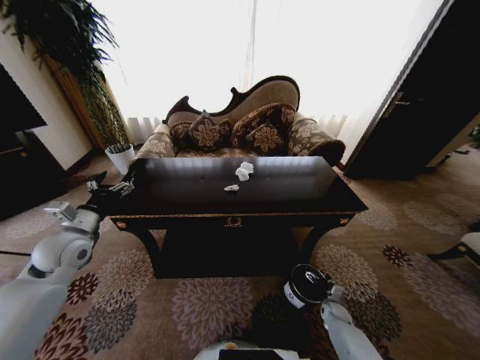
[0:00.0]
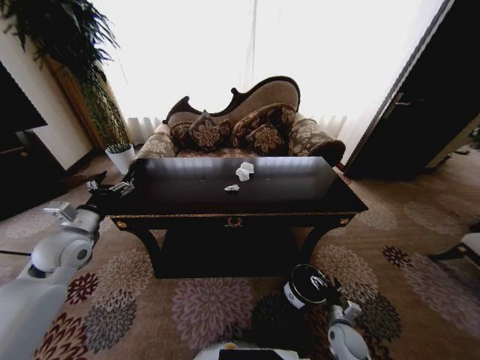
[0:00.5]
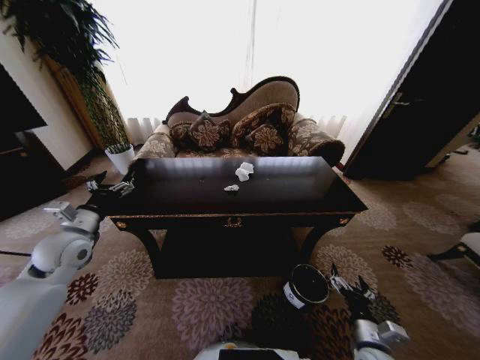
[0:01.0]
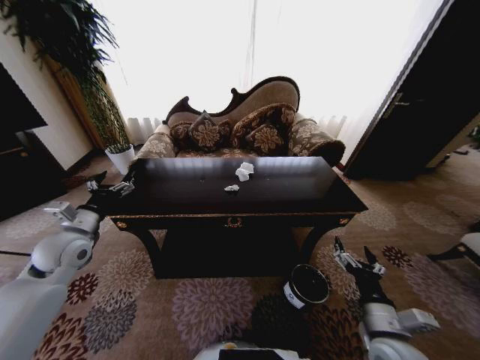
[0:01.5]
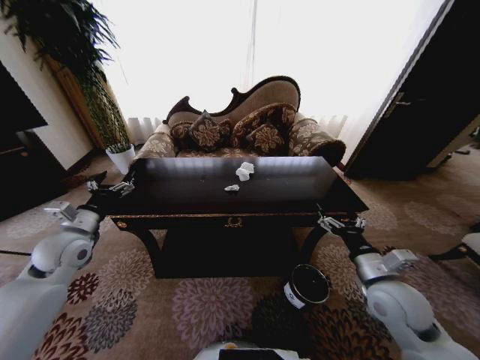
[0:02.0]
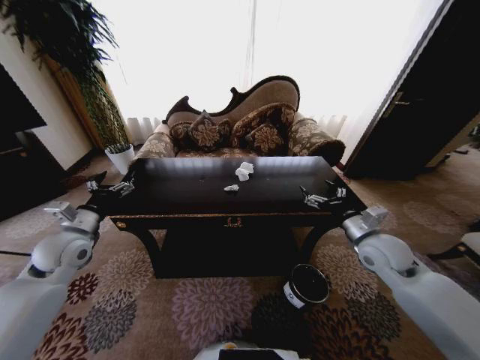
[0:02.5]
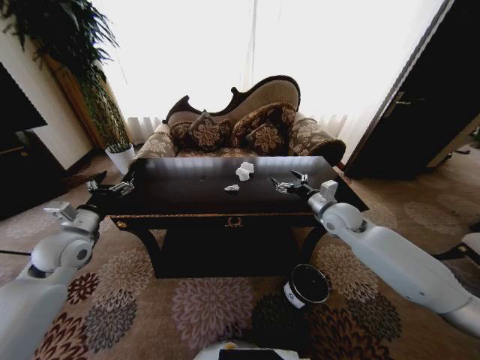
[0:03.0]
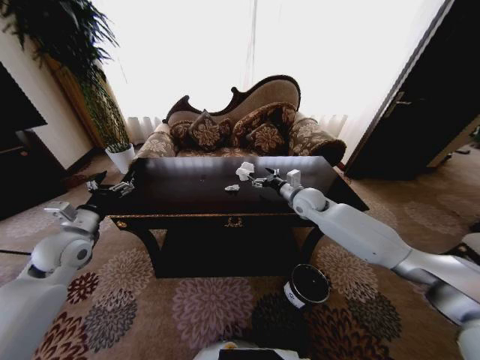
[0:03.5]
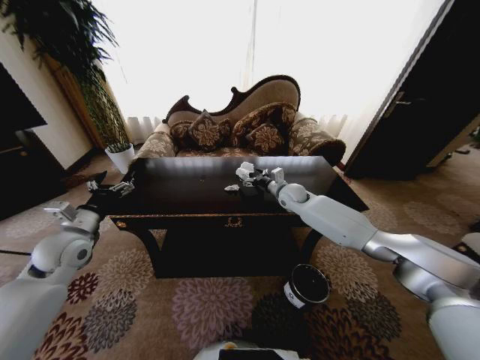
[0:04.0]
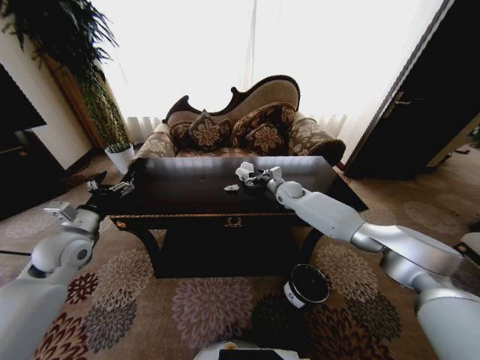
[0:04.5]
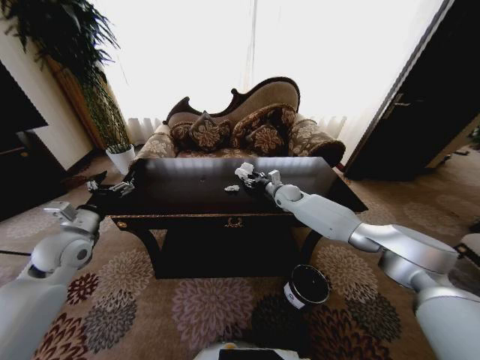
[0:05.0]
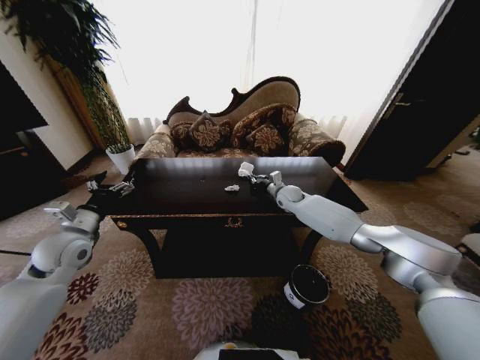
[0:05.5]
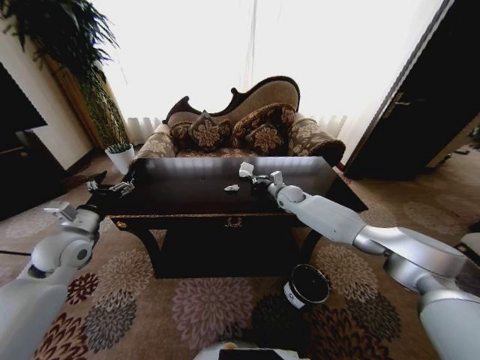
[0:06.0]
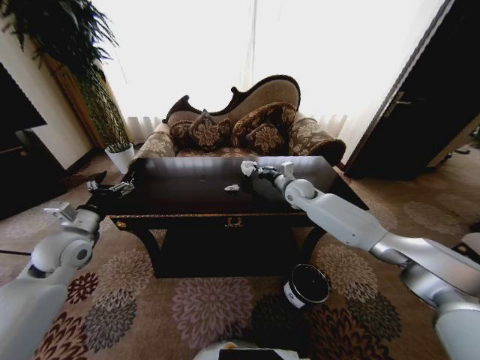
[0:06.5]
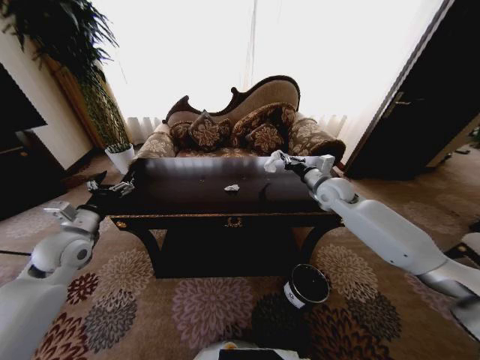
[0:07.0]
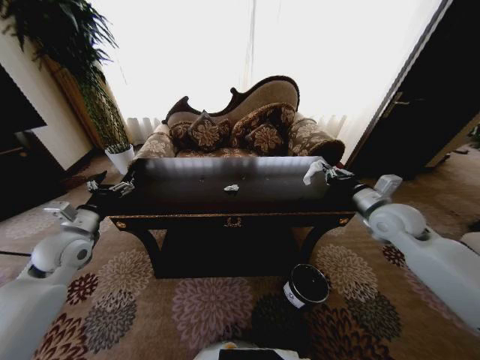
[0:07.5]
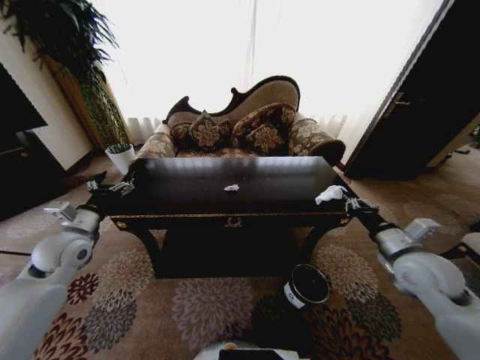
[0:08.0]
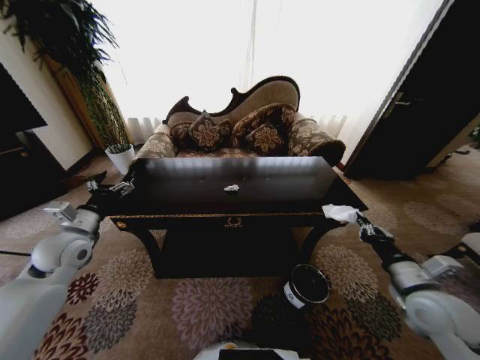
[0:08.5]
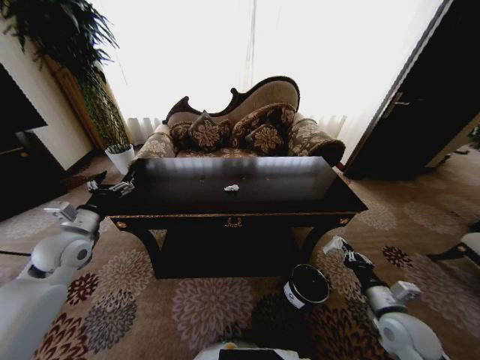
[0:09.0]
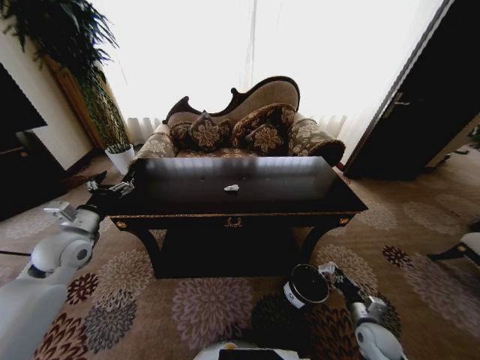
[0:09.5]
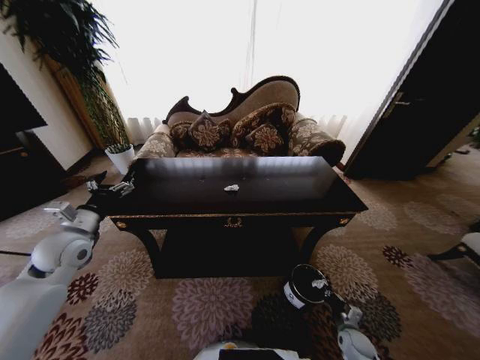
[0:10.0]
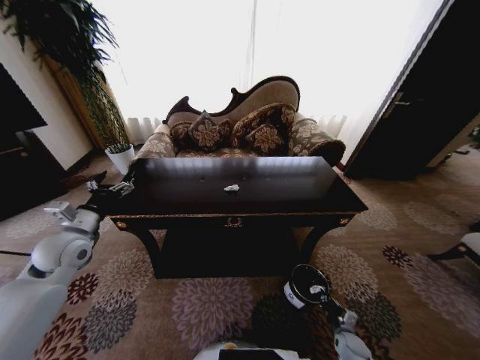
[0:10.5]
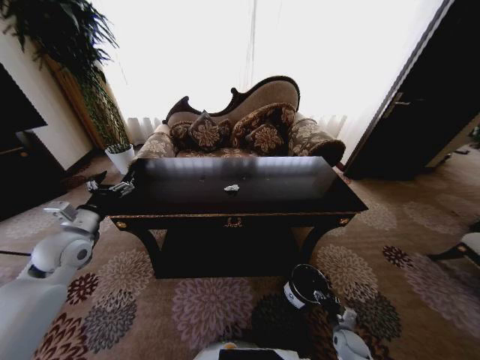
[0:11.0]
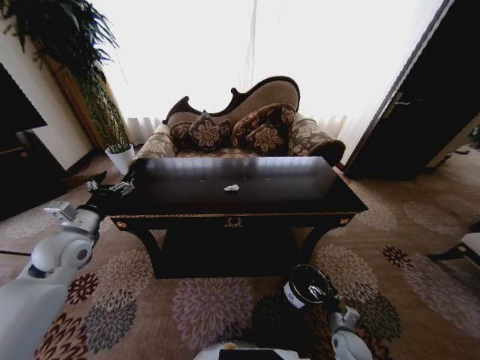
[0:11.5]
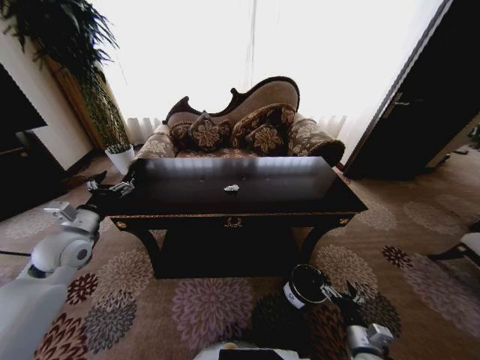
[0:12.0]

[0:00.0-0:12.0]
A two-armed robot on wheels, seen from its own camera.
Task of the whole recording: Move to the front of the table and place the trash on the table into the trash bin.
0:00.0 to 0:02.0: The right gripper is displaced upward by roughly 40 cm.
0:02.0 to 0:04.0: The right gripper shifts approximately 35 cm forward.
0:04.0 to 0:06.0: The right gripper closes its fingers.
0:06.0 to 0:08.0: The right gripper goes some 35 cm backward and to the right.
0:08.0 to 0:10.0: The right gripper is displaced downward by roughly 40 cm.
0:10.0 to 0:12.0: The right gripper moves upward, to the left and backward, some 20 cm, and opens.

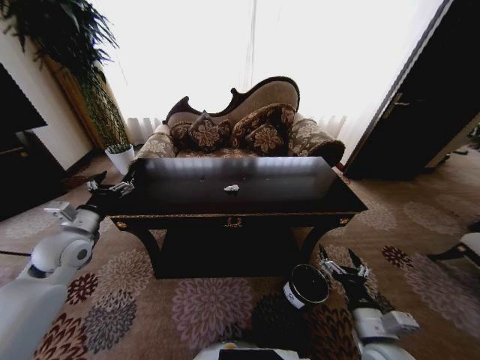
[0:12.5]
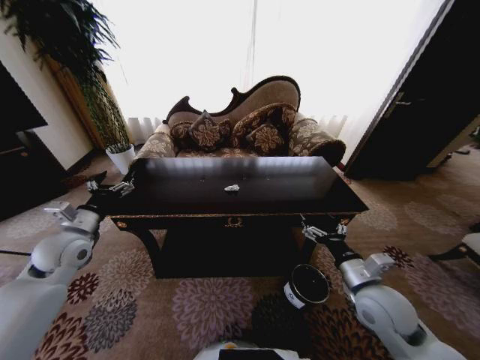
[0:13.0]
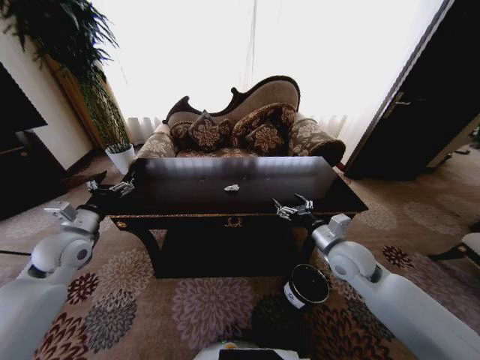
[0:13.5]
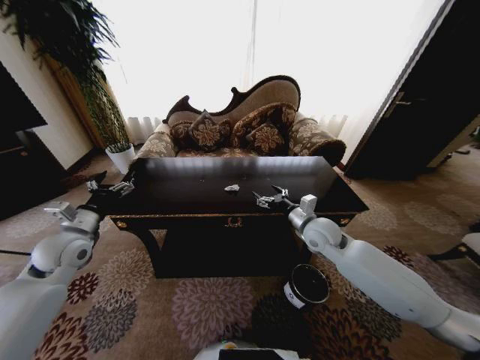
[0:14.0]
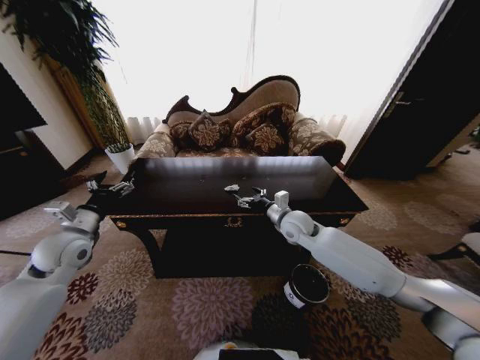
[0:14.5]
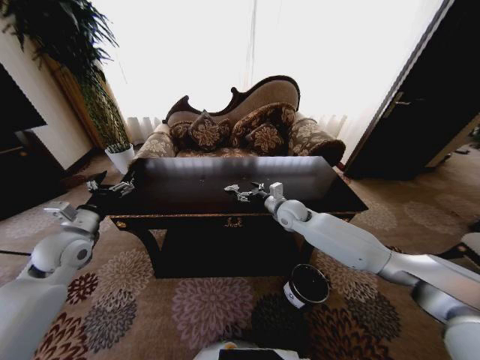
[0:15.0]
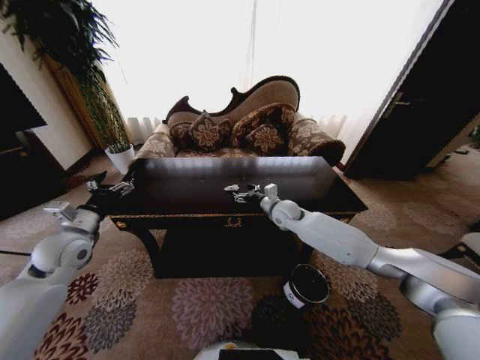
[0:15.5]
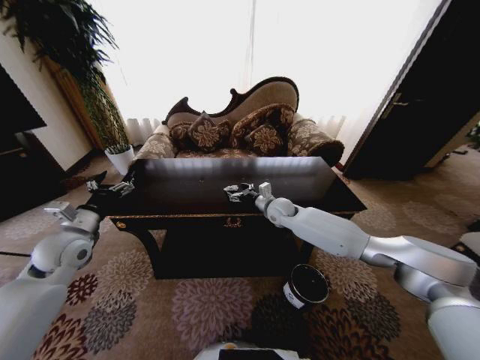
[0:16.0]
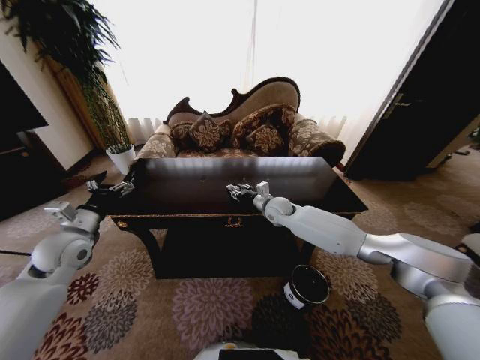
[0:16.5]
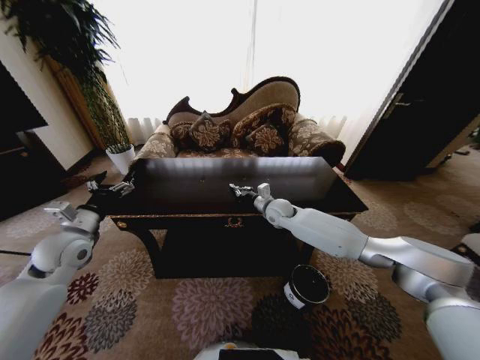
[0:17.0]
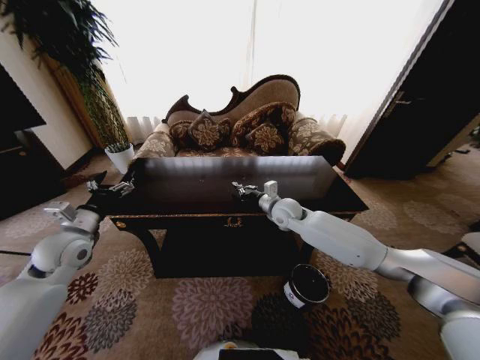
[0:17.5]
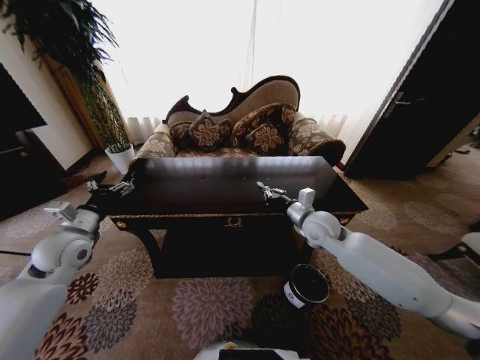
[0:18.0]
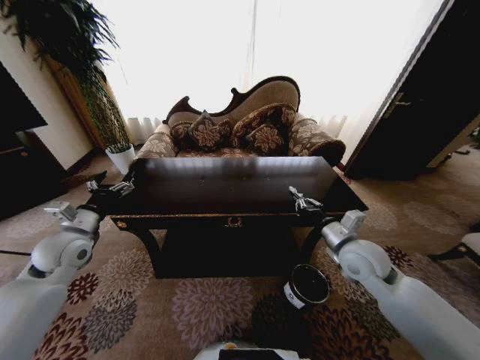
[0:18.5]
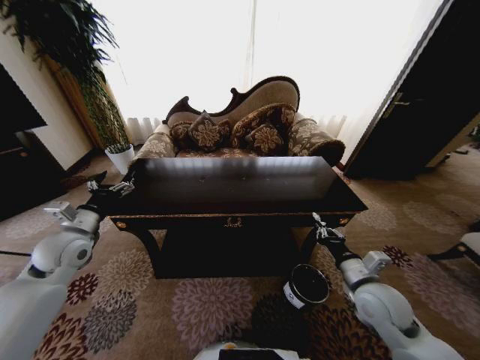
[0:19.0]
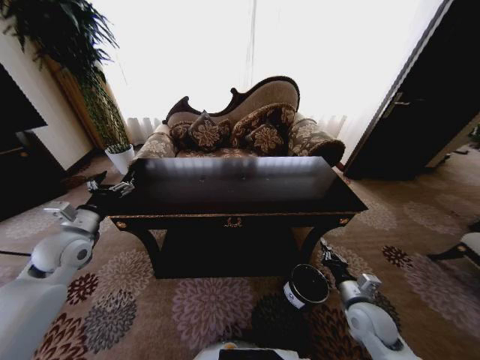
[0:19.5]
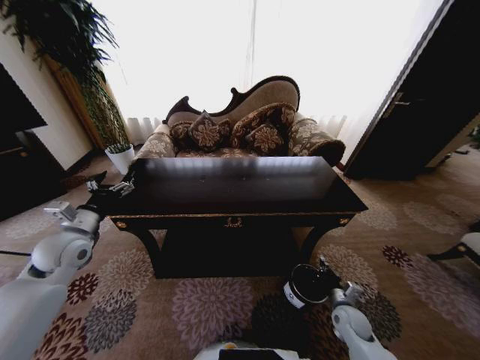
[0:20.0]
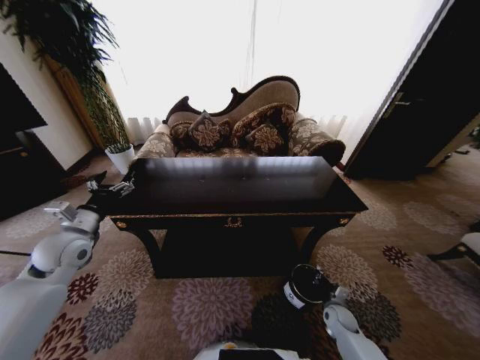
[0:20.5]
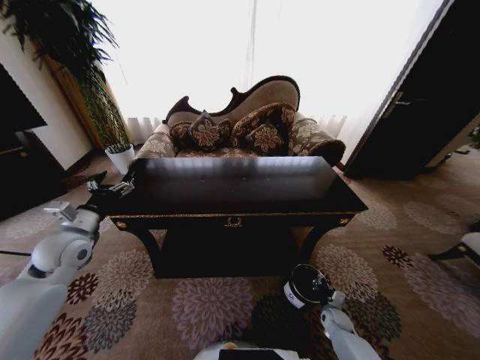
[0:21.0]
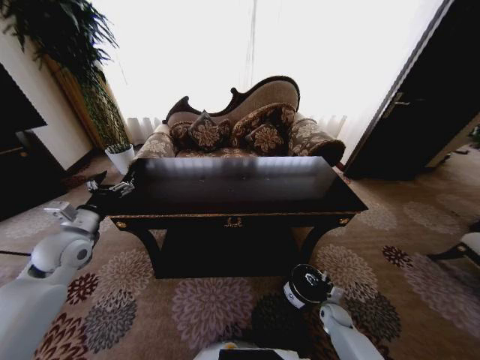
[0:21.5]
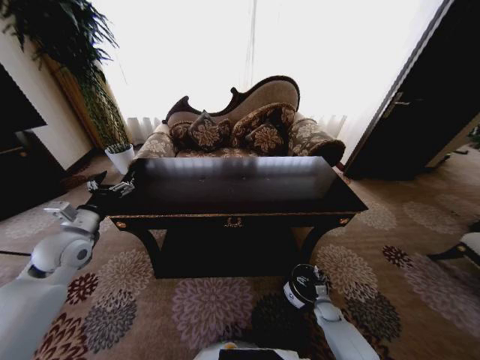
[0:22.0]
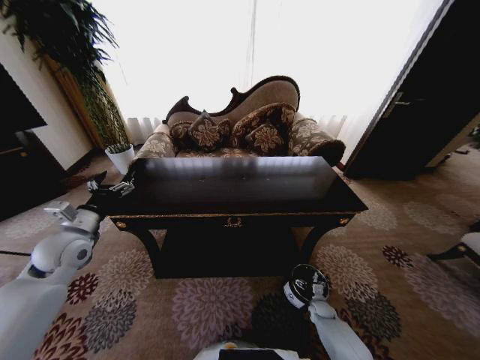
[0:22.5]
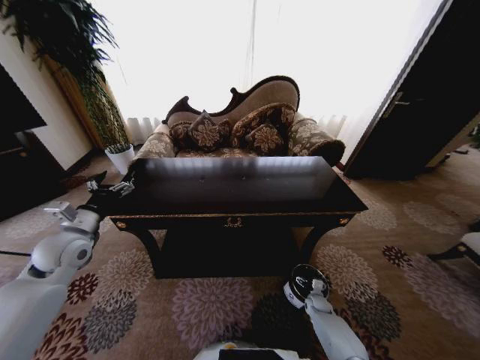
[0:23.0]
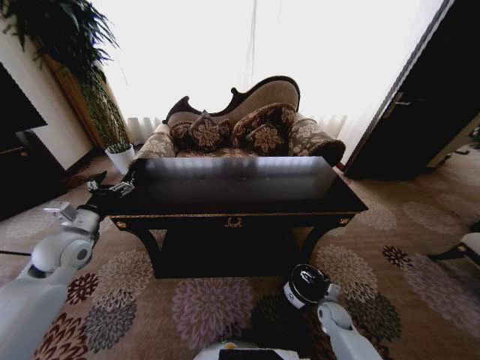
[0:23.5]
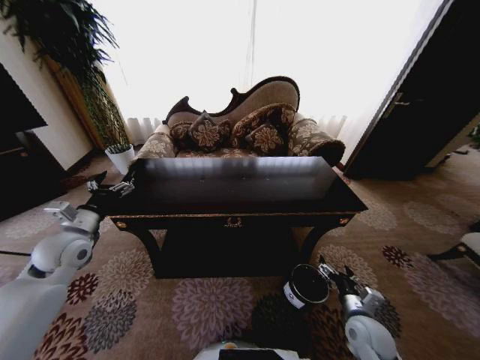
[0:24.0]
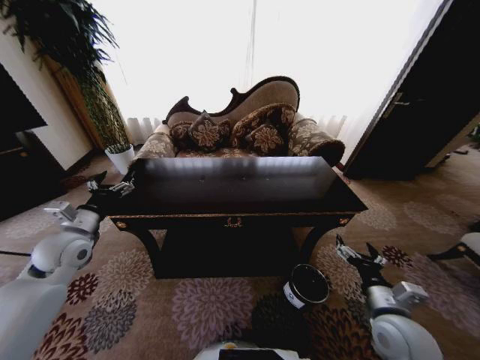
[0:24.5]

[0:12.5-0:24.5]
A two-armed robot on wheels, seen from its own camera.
Task of the whole recording: Move to the front of the table and place the trash on the table into the trash bin.
0:12.5 to 0:14.5: The right gripper heads forward, covering about 30 cm.
0:14.5 to 0:16.5: The right gripper shifts some 10 cm forward, and closes.
0:16.5 to 0:18.5: The right gripper goes roughly 25 cm backward and to the right, and closes its fingers.
0:18.5 to 0:20.5: The right gripper shifts roughly 35 cm downward.
0:20.5 to 0:22.5: The right gripper moves downward, about 10 cm, and opens up.
0:22.5 to 0:24.5: The right gripper heads upward, covering some 35 cm.

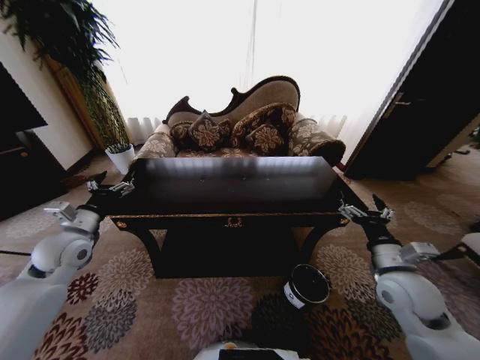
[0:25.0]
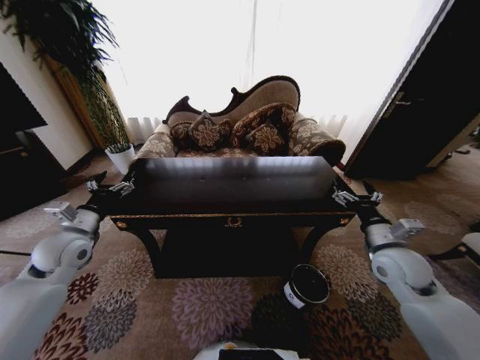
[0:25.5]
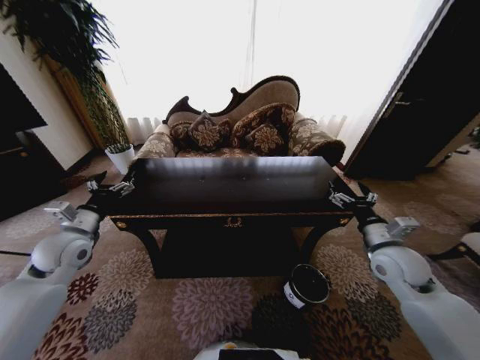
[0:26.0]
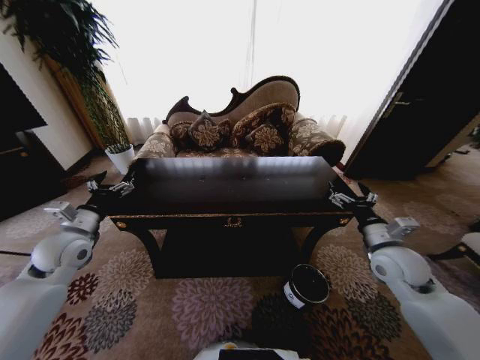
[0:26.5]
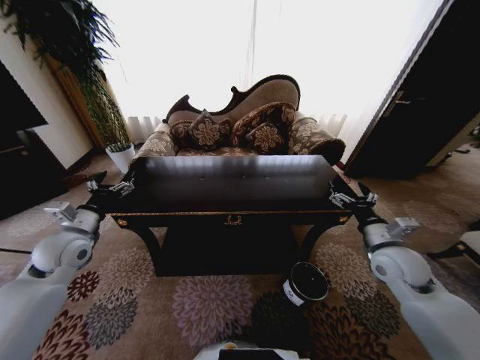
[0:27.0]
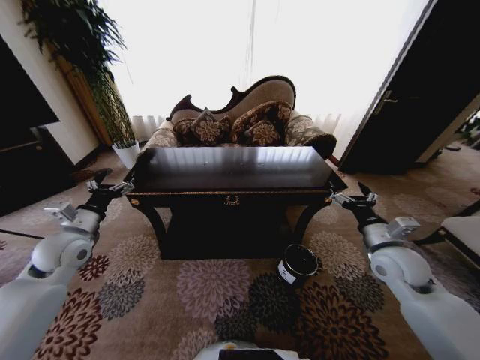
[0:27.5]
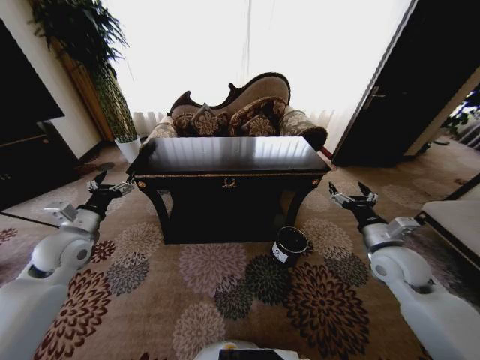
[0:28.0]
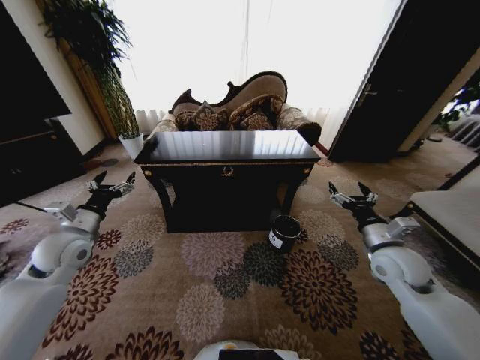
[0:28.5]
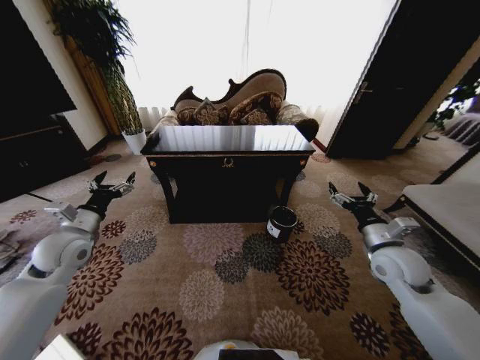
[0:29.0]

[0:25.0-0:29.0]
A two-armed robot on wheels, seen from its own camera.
Task of the whole recording: Move to the front of the table and place the trash on the table into the trash bin.
0:25.0 to 0:27.0: The right gripper moves forward, roughly 5 cm.
